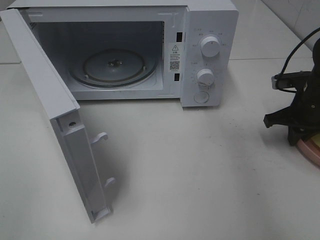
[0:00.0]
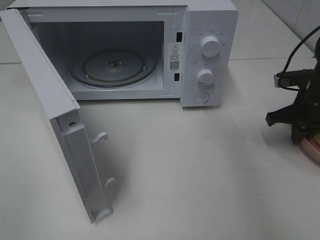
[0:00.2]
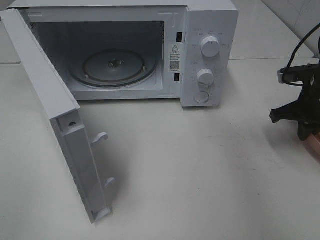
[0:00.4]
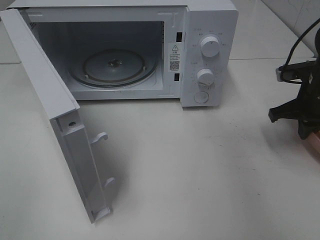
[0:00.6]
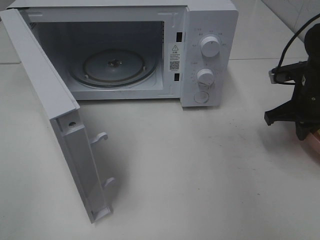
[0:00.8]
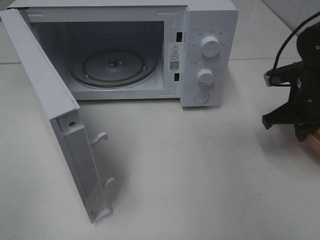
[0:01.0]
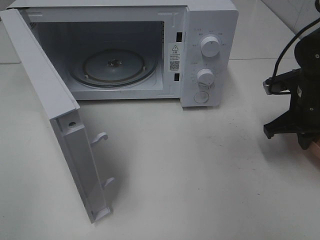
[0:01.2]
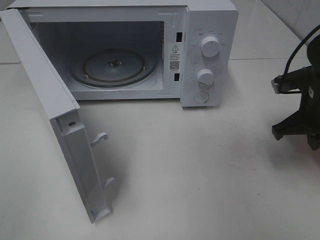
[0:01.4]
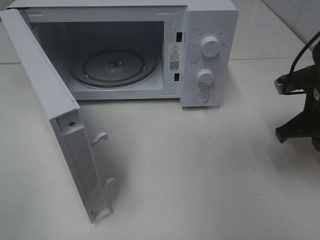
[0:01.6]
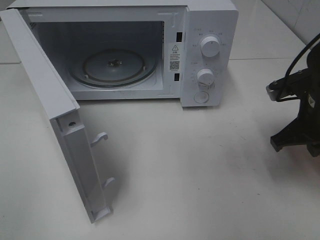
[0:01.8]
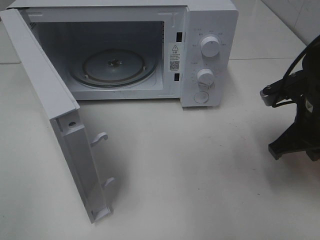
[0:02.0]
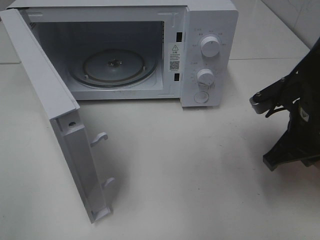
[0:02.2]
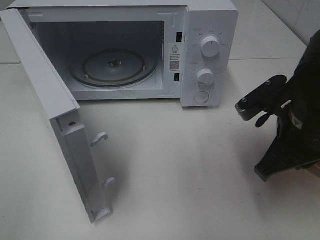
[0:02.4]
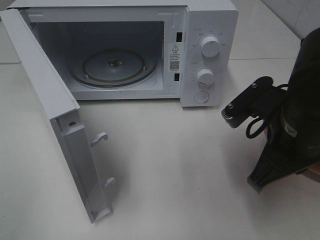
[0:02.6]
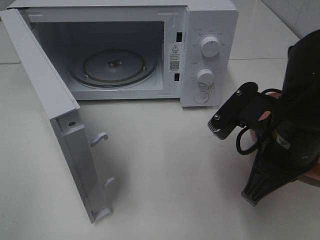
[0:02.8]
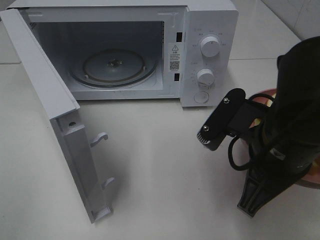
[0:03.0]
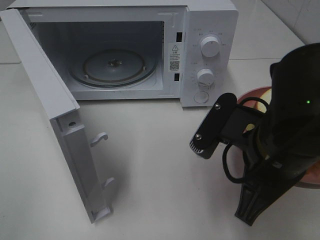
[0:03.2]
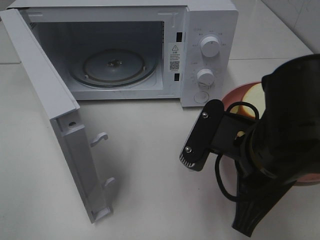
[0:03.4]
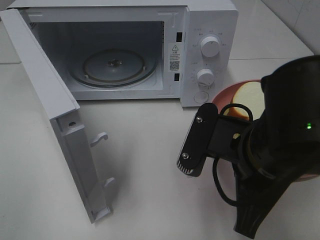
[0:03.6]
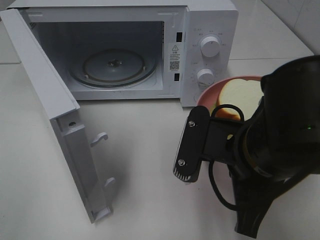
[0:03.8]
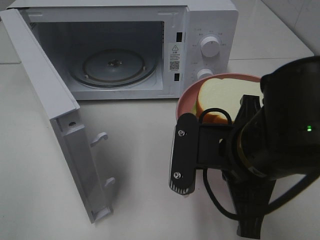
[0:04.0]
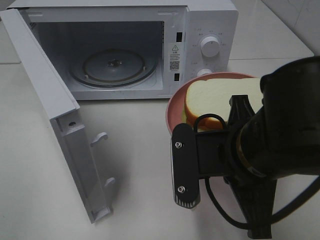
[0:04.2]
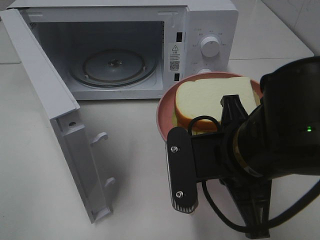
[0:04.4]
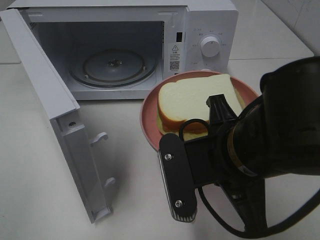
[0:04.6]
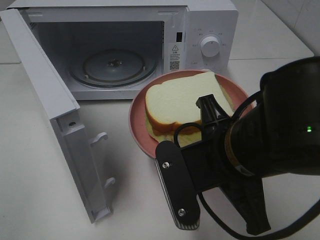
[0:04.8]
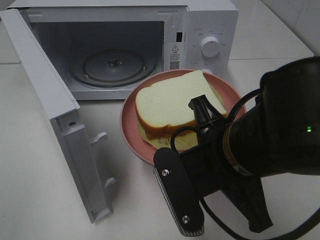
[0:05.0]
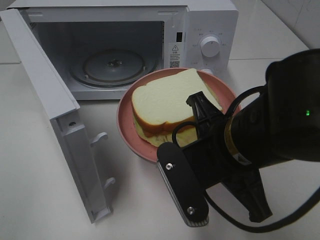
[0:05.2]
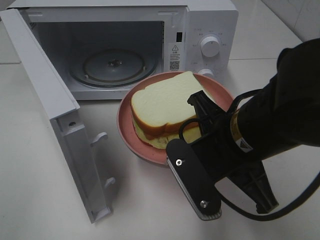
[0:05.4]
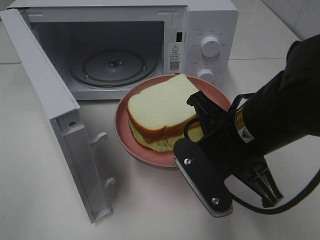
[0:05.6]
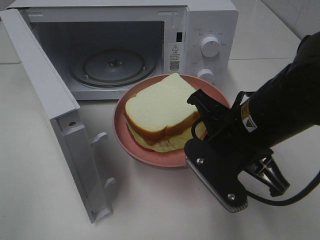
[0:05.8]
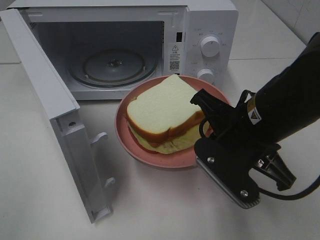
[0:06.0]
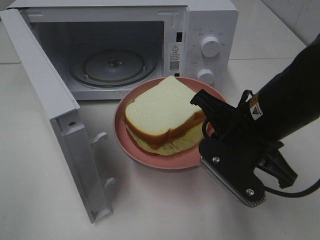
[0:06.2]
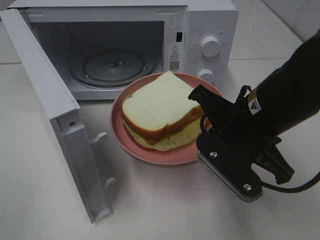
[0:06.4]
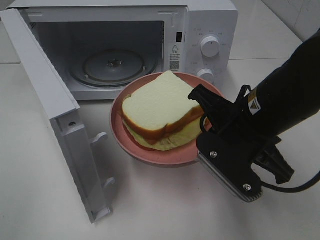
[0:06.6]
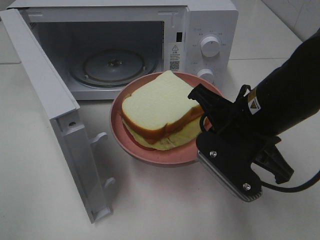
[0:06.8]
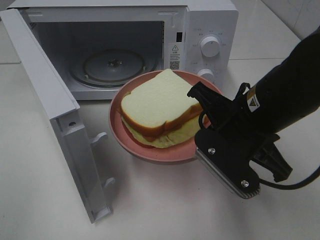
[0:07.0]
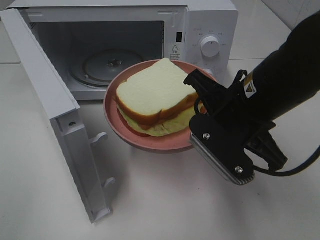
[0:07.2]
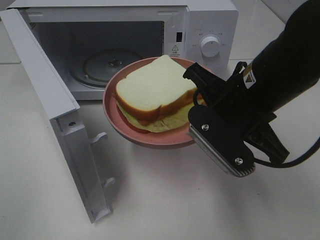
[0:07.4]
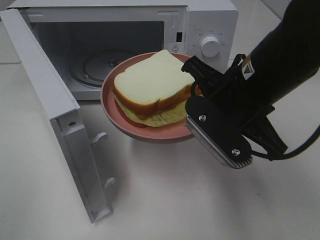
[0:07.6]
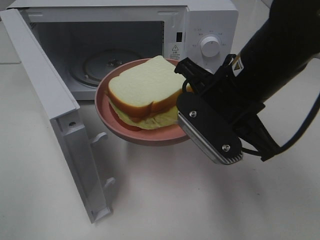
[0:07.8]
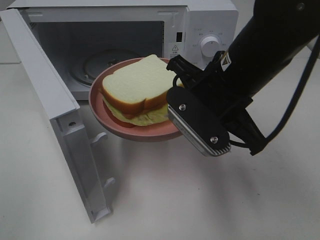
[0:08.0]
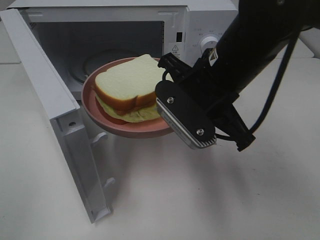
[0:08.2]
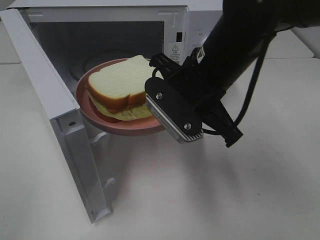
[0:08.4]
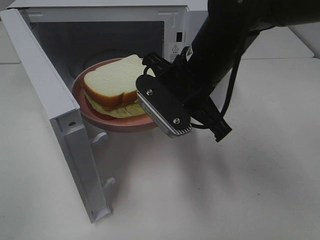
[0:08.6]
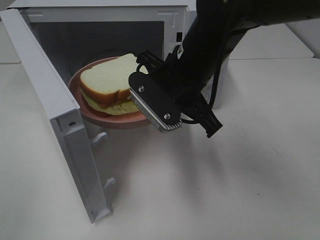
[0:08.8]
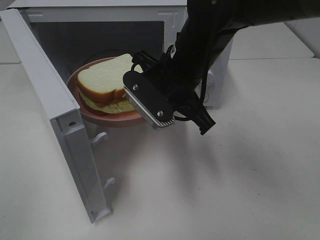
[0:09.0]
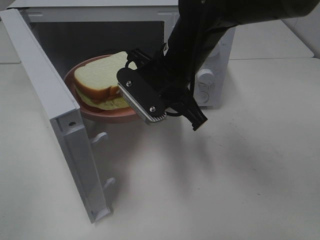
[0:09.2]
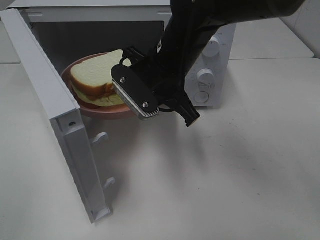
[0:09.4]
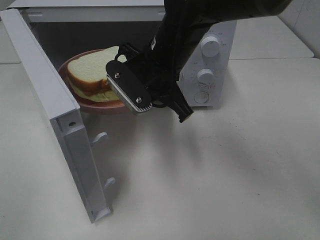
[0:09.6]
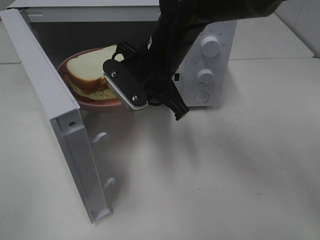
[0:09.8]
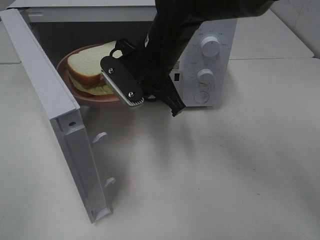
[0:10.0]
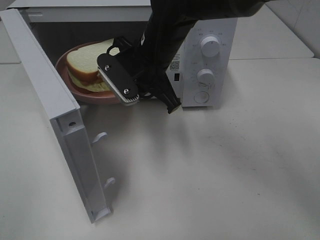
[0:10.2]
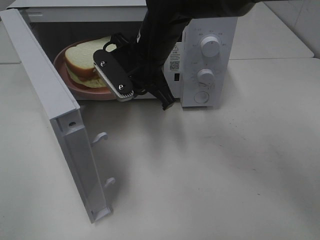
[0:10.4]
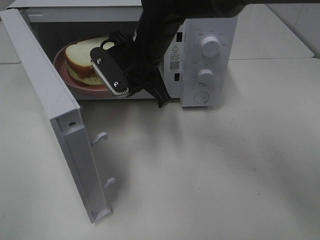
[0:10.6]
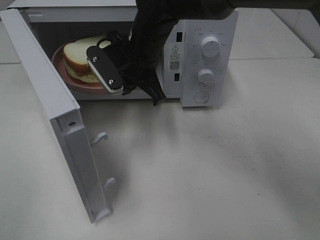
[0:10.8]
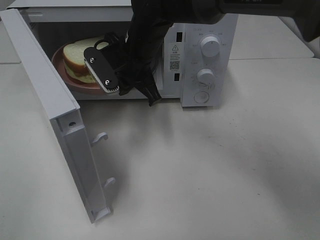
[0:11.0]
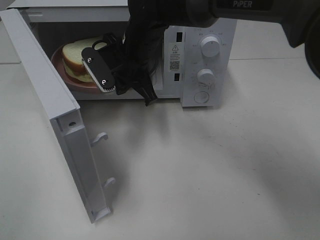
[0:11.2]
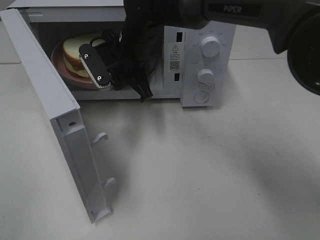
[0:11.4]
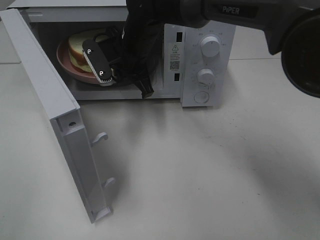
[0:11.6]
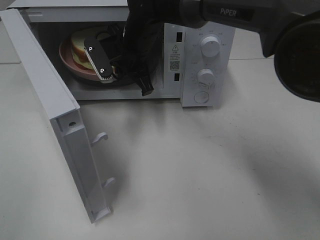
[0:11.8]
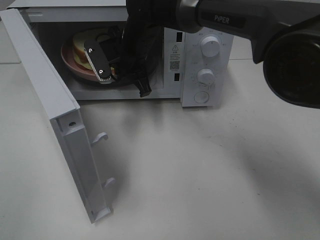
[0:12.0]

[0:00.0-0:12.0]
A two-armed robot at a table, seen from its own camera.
Task of the whole recording: Heat Sandwich.
0:00.0 to 0:01.6: The right gripper shifts approximately 5 cm backward.
0:01.6 to 0:03.0: The right gripper heads to the left and backward, covering approximately 20 cm.
0:04.4 to 0:06.0: The right gripper moves forward, roughly 5 cm.
0:07.6 to 0:09.0: The right gripper is displaced forward and to the left by some 10 cm.
0:09.0 to 0:10.4: The right gripper shifts about 5 cm forward.
0:10.4 to 0:12.0: The right gripper travels forward by some 5 cm.

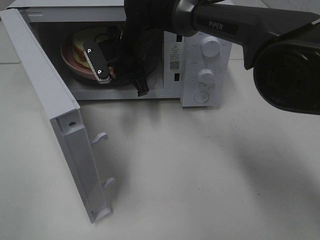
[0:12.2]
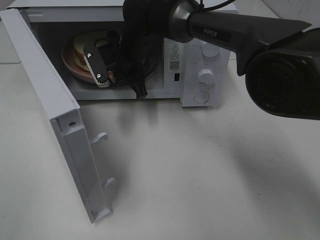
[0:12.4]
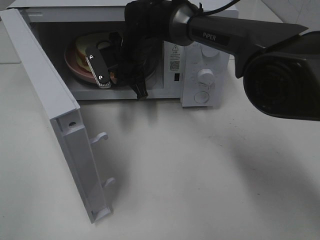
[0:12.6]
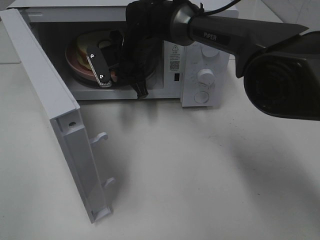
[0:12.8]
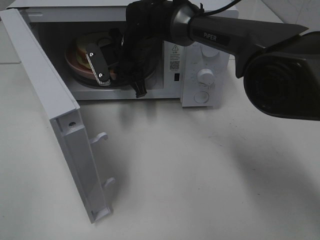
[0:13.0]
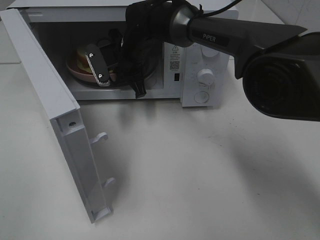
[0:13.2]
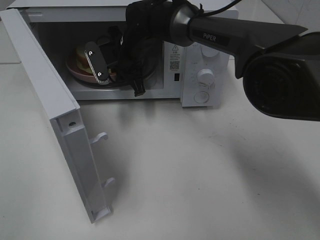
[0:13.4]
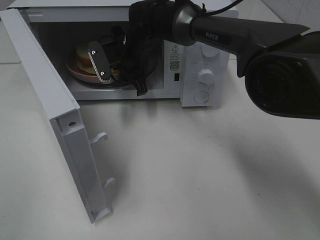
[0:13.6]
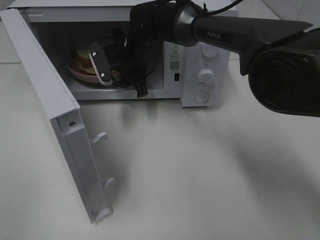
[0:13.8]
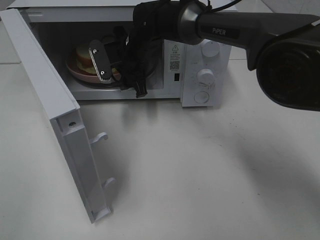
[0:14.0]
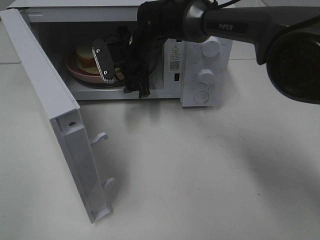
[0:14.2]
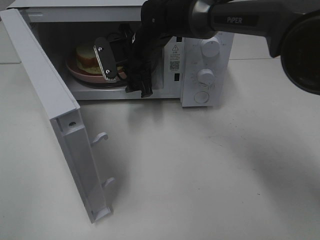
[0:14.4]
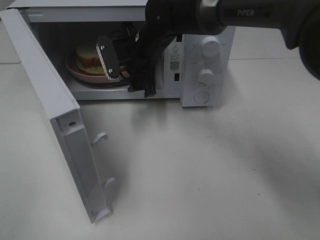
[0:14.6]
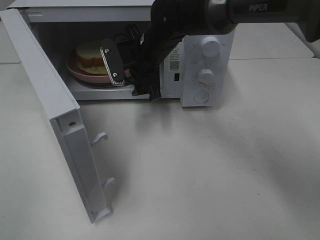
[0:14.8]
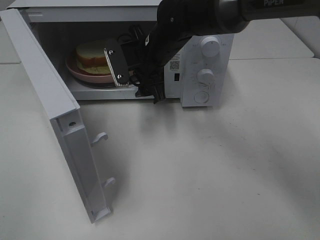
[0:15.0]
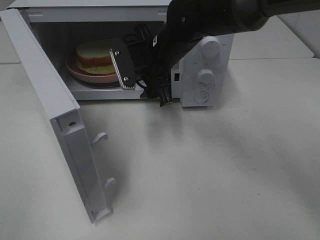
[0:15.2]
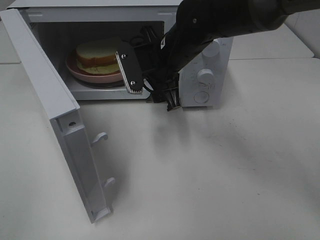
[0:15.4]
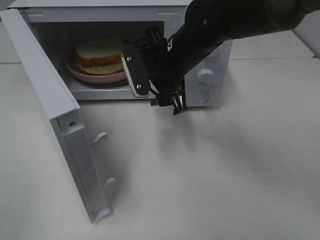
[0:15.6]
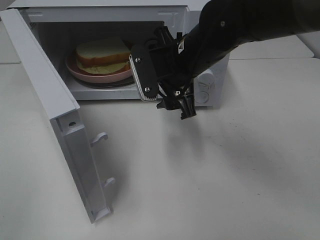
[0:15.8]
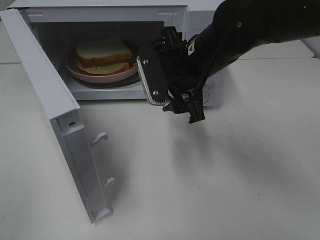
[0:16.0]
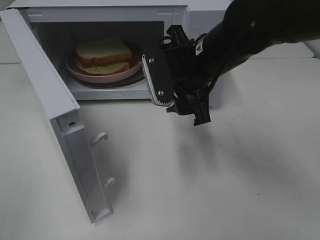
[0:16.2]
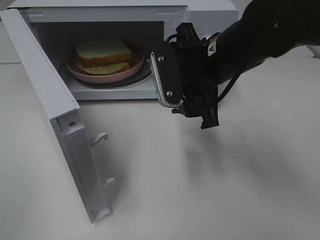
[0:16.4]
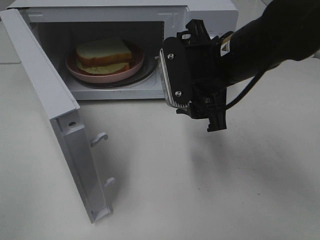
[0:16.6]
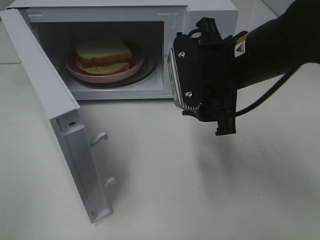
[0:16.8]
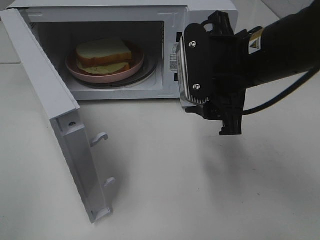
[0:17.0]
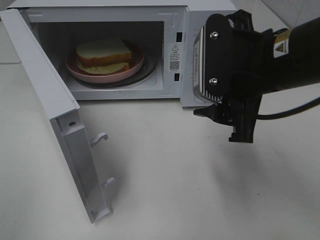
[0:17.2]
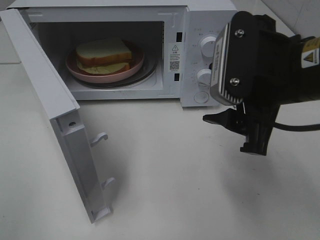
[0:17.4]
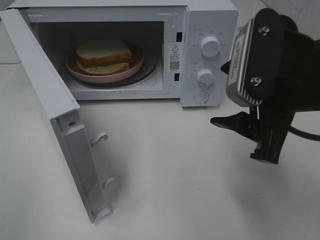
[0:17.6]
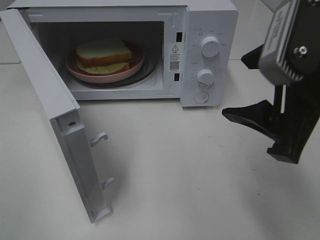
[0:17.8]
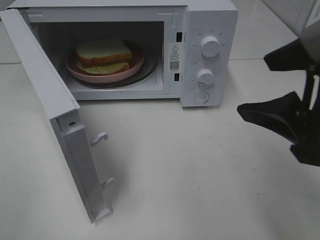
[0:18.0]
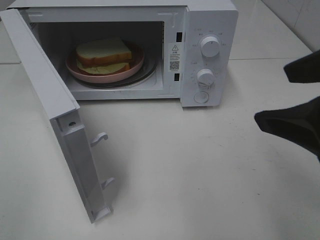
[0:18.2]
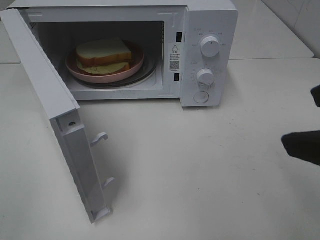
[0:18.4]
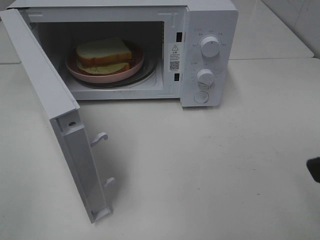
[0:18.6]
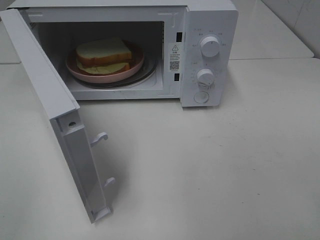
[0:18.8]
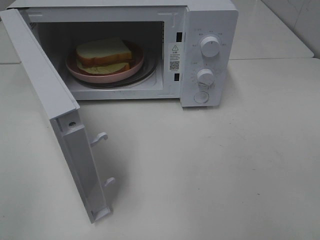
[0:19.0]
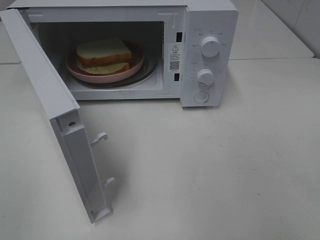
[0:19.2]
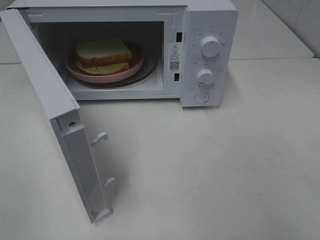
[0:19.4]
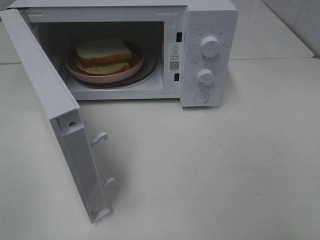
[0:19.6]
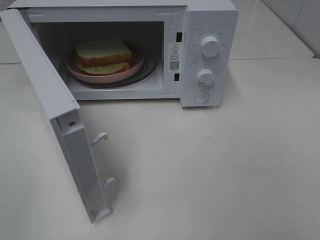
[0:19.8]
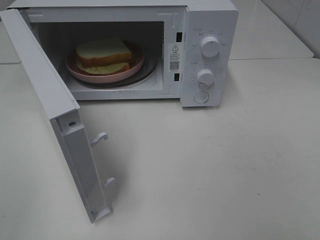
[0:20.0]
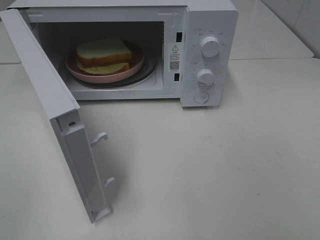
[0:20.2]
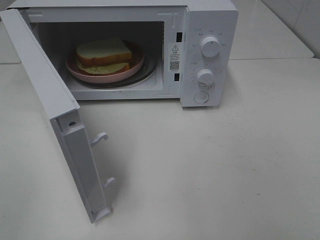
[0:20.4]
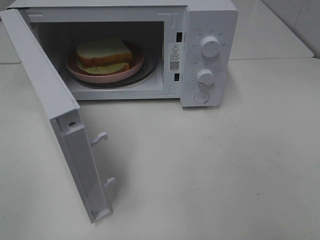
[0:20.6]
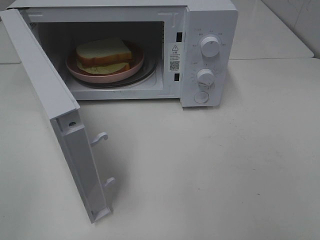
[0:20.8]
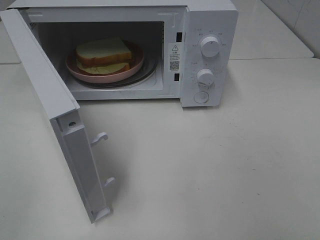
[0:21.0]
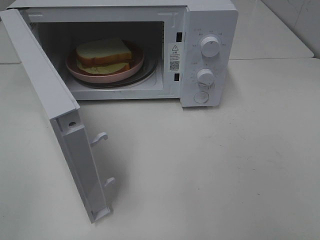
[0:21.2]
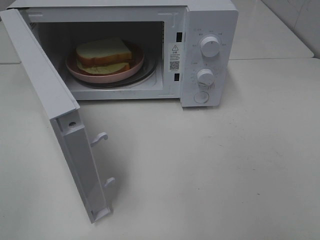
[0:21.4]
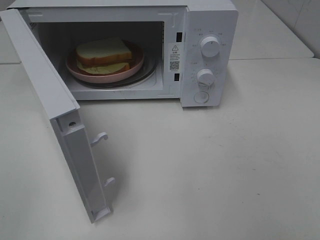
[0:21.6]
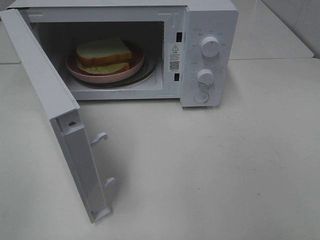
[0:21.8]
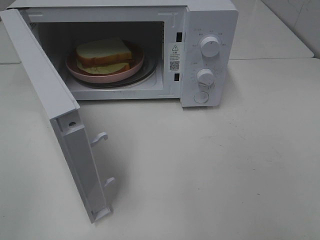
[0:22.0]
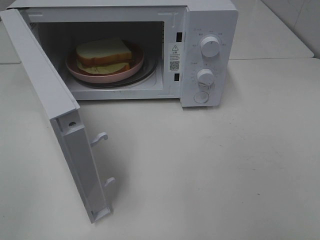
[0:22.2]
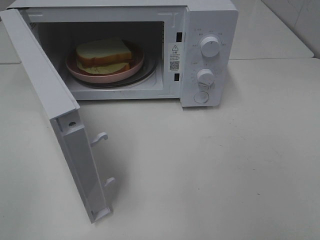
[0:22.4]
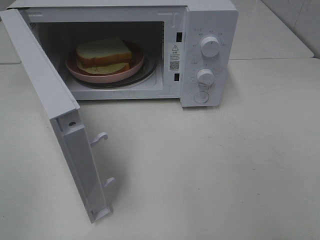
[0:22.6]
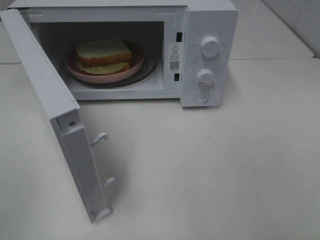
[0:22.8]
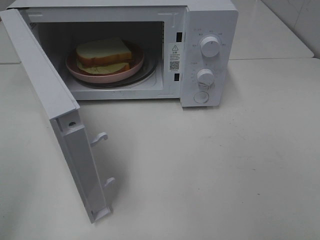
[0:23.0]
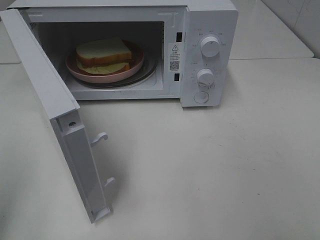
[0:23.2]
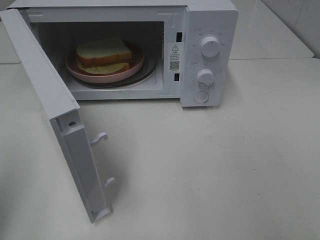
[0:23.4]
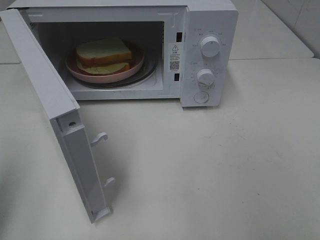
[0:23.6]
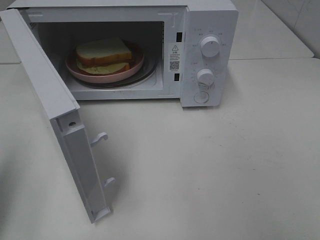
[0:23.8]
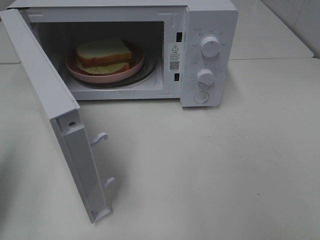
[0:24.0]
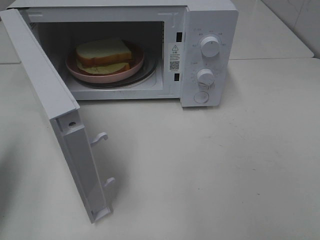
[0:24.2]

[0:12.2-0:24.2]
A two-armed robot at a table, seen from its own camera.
Task of the whole recording: Heat Sandwich.
Step, 0:12.2 to 0:14.8: Right hand: place the plate in the microwave.
0:12.2 to 0:13.8: The right gripper opens up.
0:13.8 to 0:15.2: The right gripper heads backward and to the right, covering some 10 cm.
0:15.2 to 0:16.6: The right gripper heads backward and to the right, covering approximately 15 cm.
0:16.6 to 0:18.2: The right gripper heads backward, to the right and upward, covering some 20 cm.
0:18.2 to 0:19.8: The right gripper is displaced backward and to the right by approximately 15 cm.
0:22.6 to 0:24.2: The left gripper moves forward, some 20 cm, and closes.
